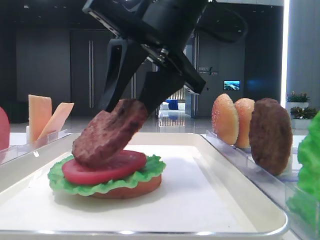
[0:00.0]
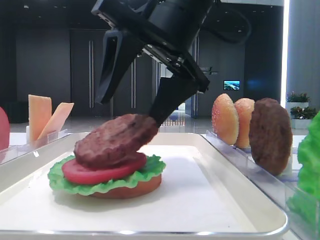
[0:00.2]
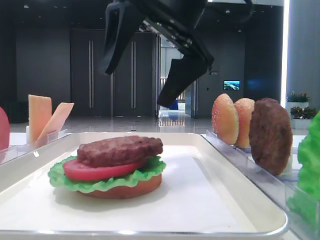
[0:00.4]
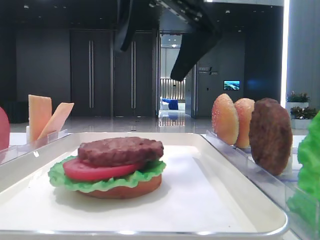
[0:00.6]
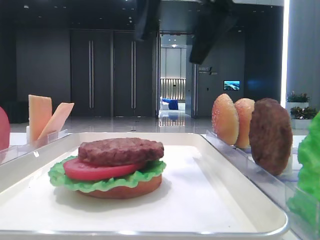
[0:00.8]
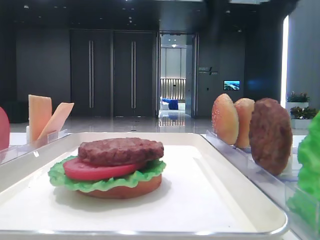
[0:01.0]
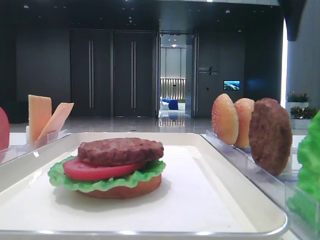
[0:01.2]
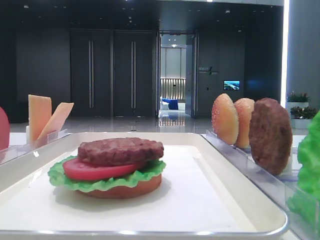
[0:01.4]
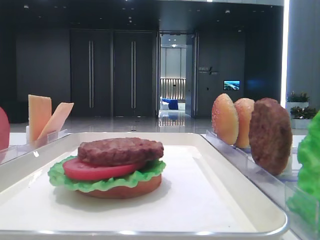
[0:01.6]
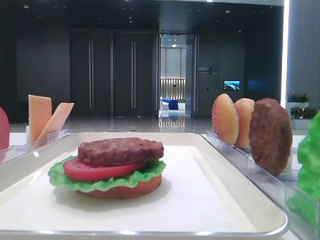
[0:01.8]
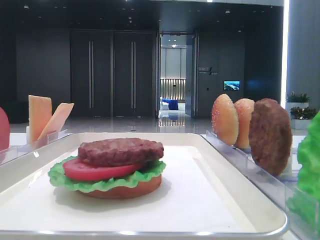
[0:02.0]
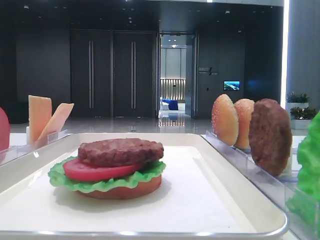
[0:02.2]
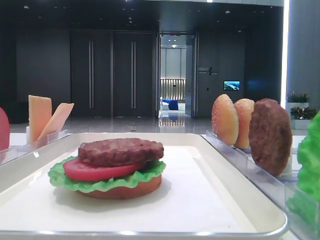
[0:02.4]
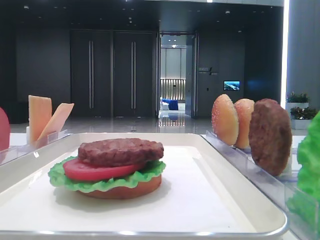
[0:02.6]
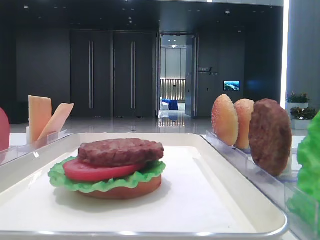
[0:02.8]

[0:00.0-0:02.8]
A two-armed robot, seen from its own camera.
0:00.0 to 0:01.4: The right gripper is displaced to the right and upward by about 30 cm, and opens its fingers.
0:01.4 to 0:02.8: The right gripper goes roughly 35 cm backward.
